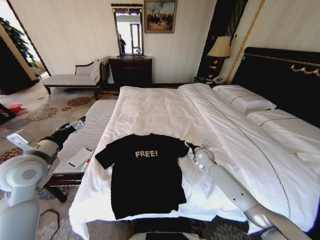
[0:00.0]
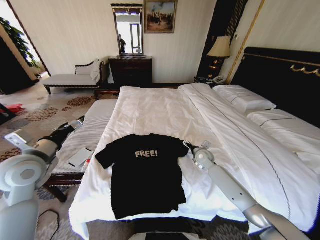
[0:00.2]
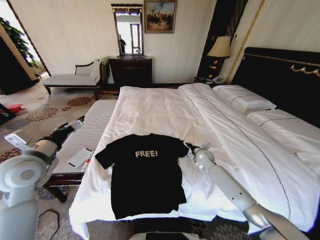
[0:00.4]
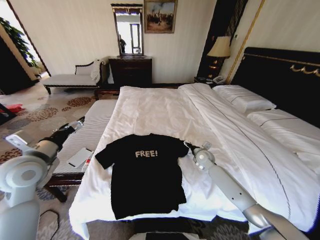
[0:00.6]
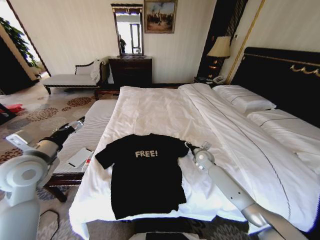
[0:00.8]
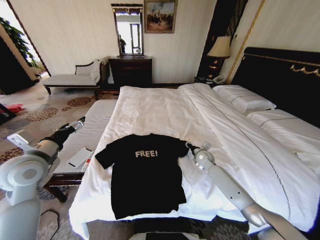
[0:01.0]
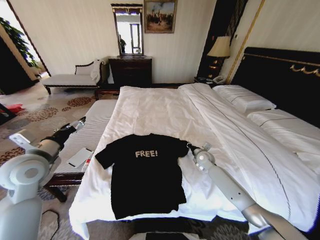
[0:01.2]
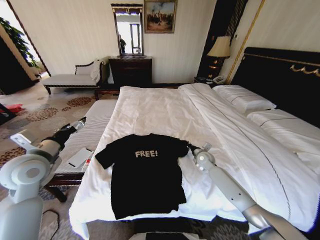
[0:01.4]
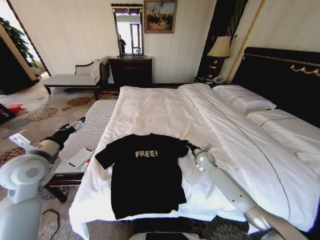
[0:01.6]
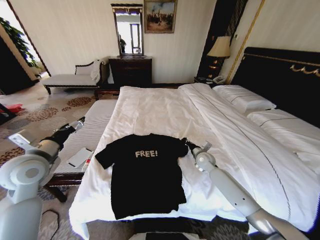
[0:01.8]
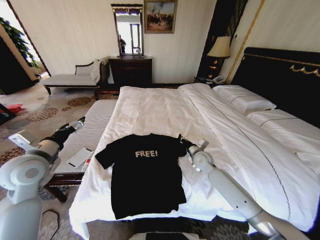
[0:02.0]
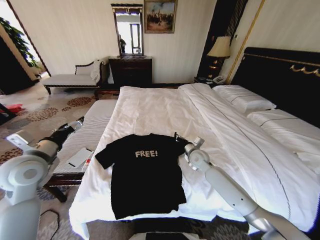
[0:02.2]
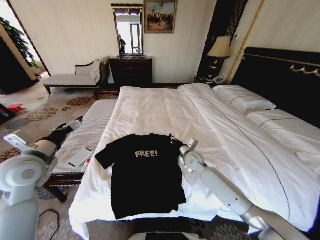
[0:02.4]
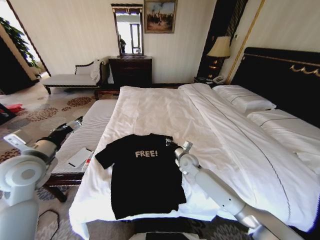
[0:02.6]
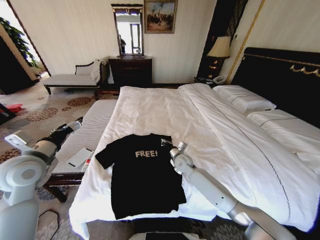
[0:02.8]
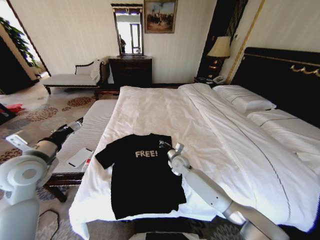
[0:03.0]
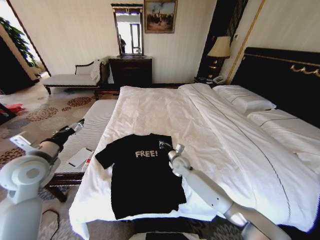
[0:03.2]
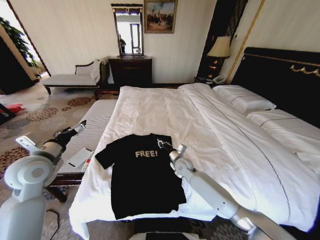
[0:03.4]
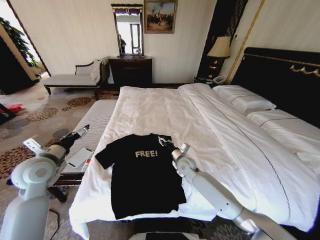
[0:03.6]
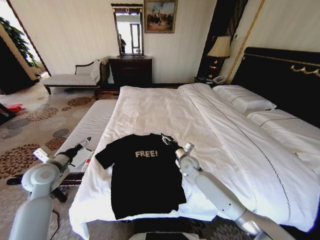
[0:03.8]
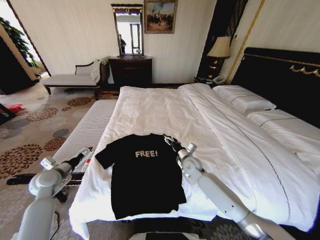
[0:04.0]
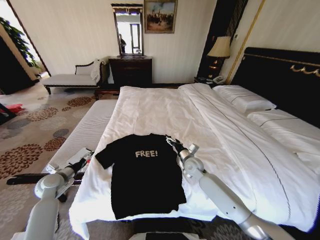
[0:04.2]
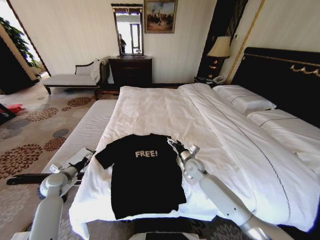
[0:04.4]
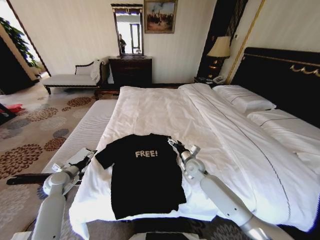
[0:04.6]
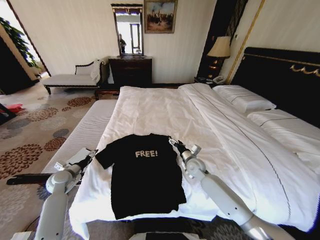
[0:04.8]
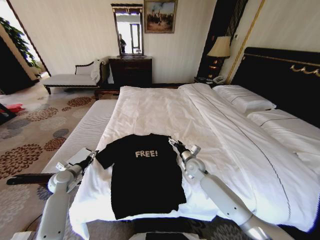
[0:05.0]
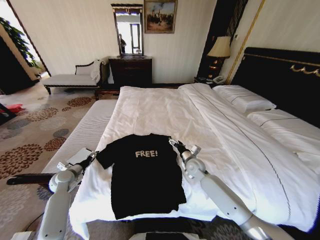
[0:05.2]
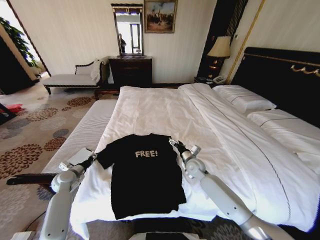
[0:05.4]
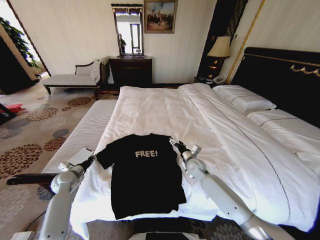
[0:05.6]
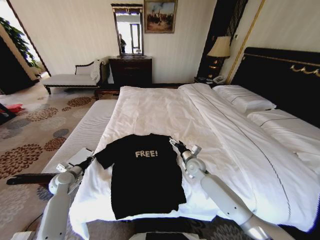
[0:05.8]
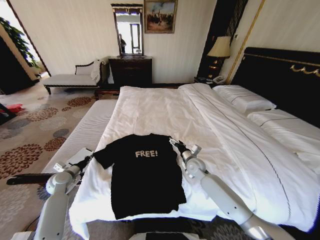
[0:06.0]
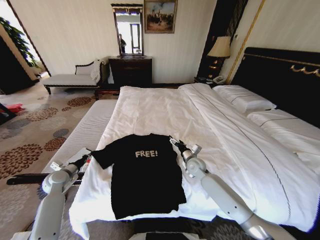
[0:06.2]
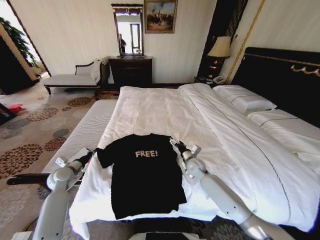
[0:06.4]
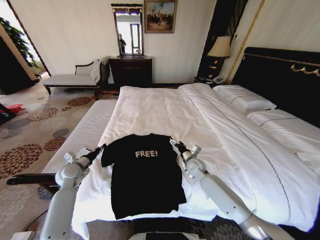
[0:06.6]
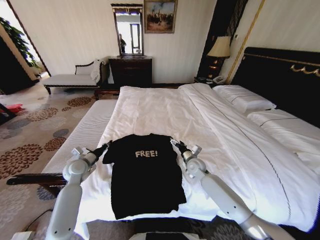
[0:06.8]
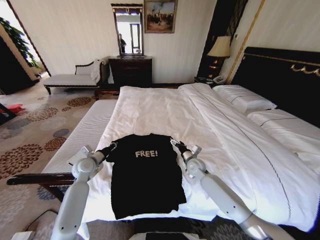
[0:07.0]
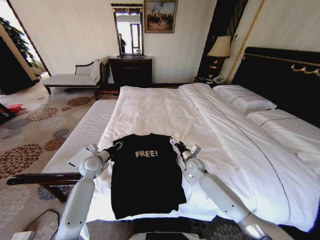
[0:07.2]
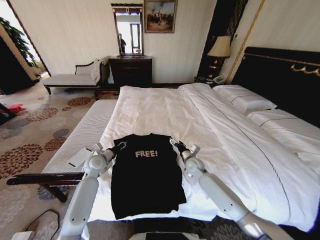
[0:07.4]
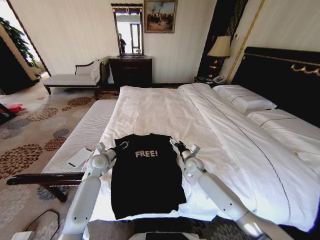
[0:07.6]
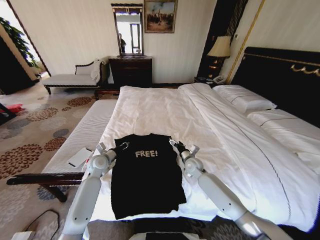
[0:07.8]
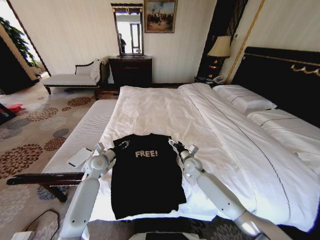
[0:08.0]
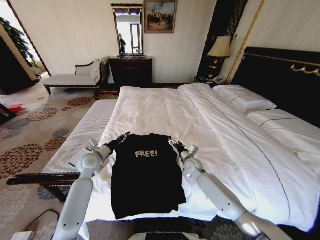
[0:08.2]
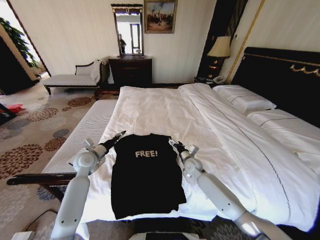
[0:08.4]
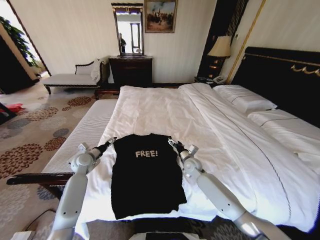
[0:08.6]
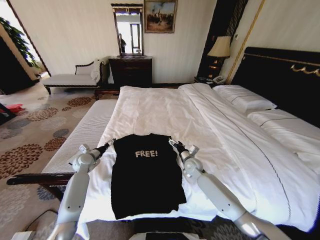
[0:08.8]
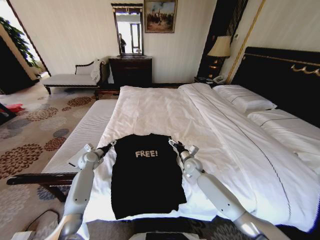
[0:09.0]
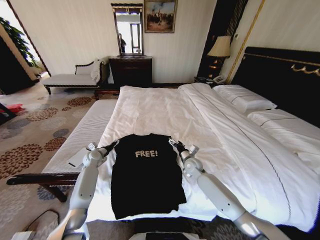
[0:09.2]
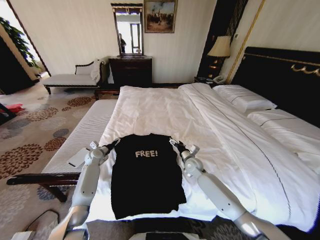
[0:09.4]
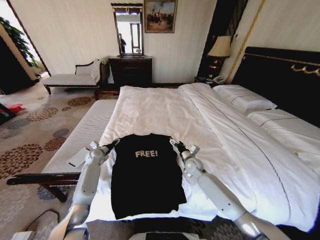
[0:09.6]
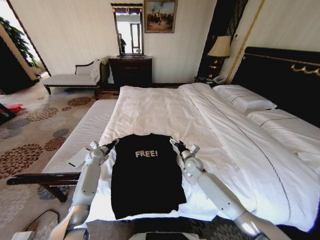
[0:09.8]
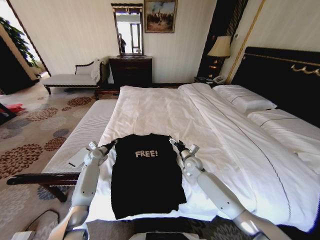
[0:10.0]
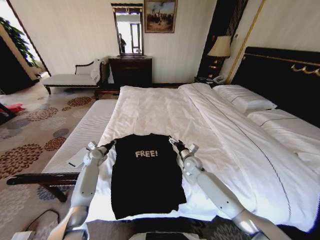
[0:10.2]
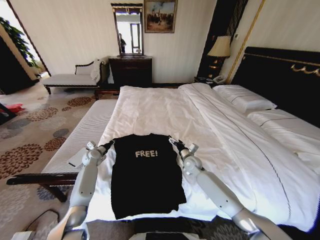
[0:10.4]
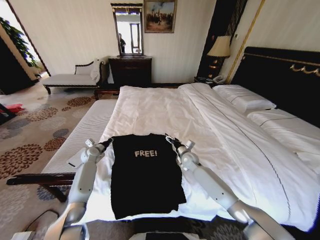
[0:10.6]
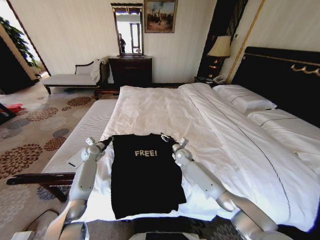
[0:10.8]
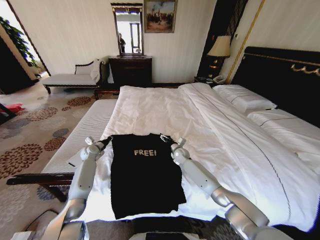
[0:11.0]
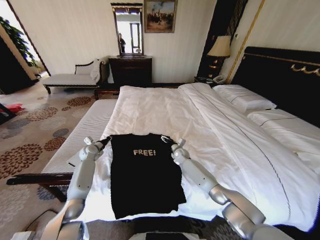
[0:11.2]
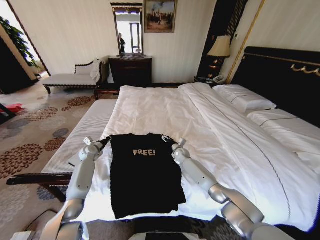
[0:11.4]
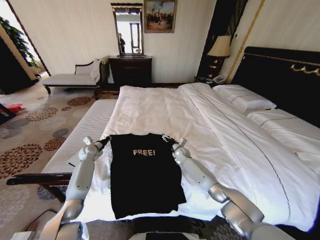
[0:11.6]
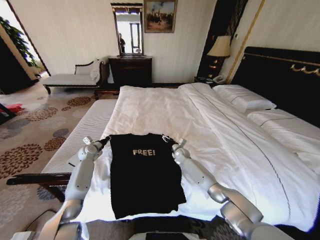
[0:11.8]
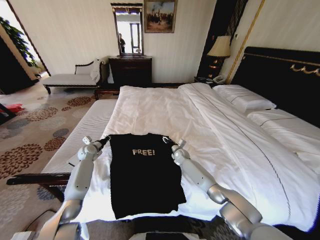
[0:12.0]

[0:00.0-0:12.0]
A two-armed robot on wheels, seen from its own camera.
Task of the whole recording: Fold the clothes on the bed.
0:00.0 to 0:01.6: The right gripper closes.
0:01.6 to 0:03.0: The right gripper moves to the left, some 15 cm.
0:03.0 to 0:04.4: The right gripper is displaced to the right by approximately 5 cm, and opens up. The left gripper goes about 20 cm downward.
0:04.4 to 0:06.0: The left gripper closes its fingers.
0:06.0 to 0:07.6: The left gripper goes approximately 20 cm to the right and forward.
0:07.6 to 0:09.0: The left gripper is displaced to the left and forward by roughly 10 cm, and opens.
0:09.0 to 0:10.4: The left gripper closes its fingers.
0:10.4 to 0:12.0: The right gripper goes approximately 10 cm forward and downward.

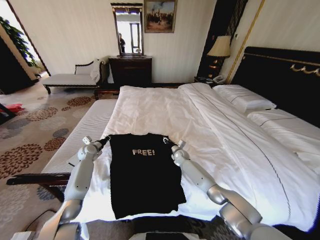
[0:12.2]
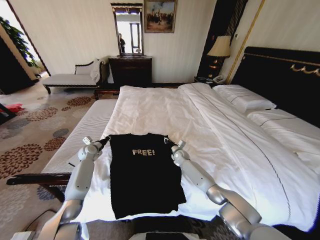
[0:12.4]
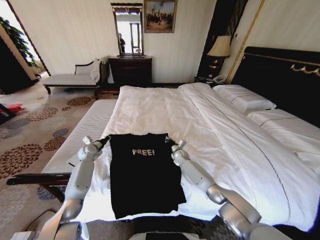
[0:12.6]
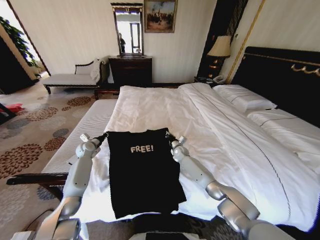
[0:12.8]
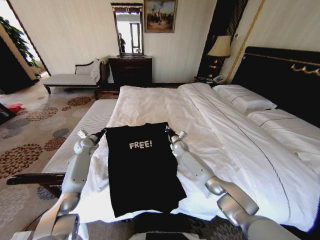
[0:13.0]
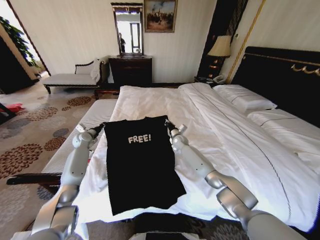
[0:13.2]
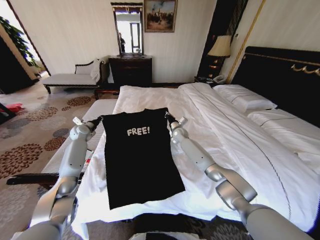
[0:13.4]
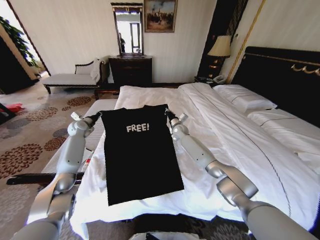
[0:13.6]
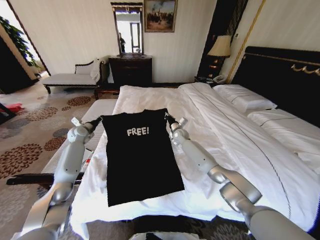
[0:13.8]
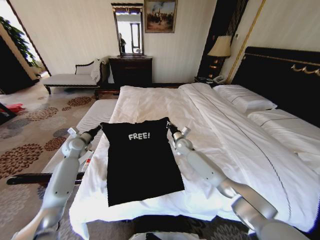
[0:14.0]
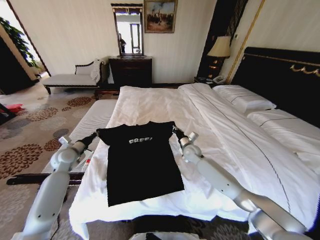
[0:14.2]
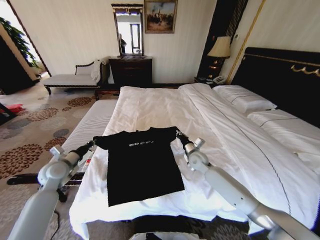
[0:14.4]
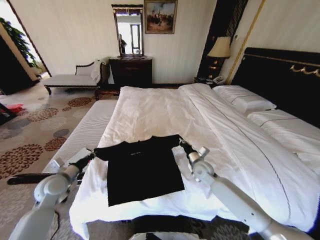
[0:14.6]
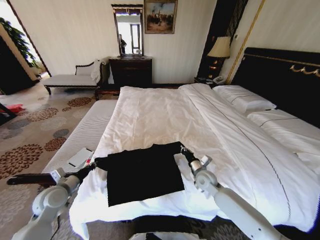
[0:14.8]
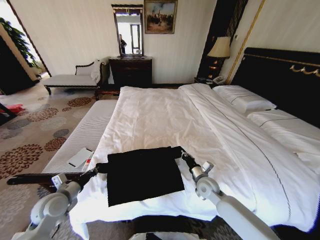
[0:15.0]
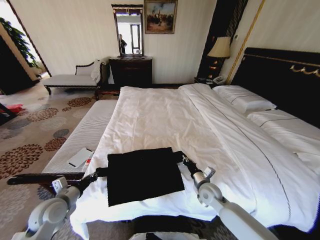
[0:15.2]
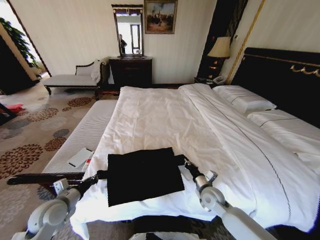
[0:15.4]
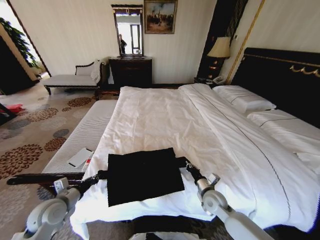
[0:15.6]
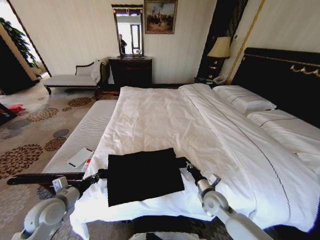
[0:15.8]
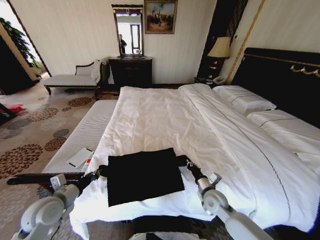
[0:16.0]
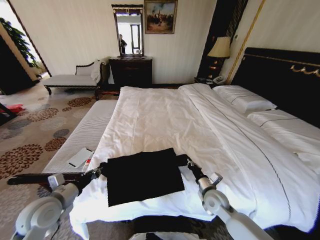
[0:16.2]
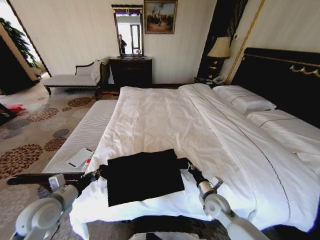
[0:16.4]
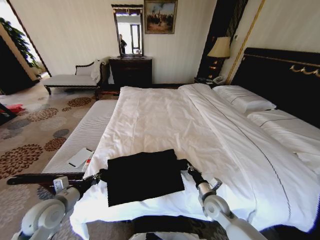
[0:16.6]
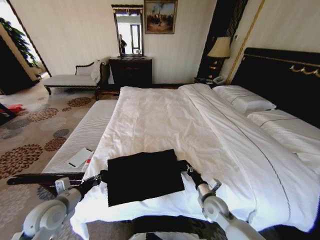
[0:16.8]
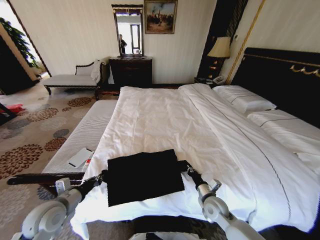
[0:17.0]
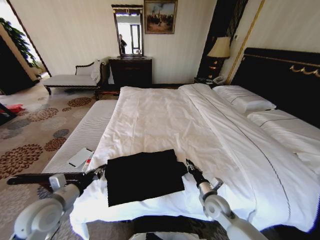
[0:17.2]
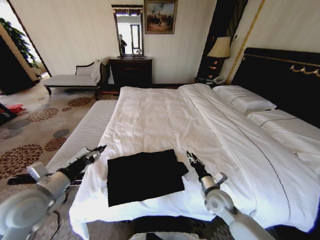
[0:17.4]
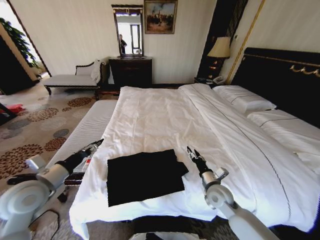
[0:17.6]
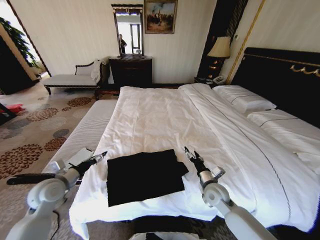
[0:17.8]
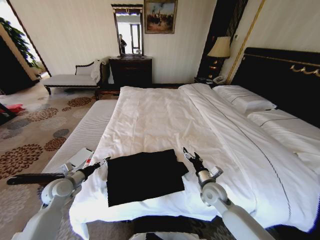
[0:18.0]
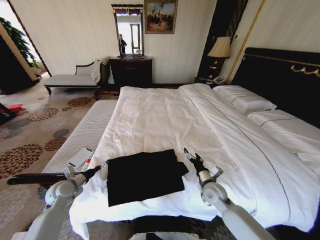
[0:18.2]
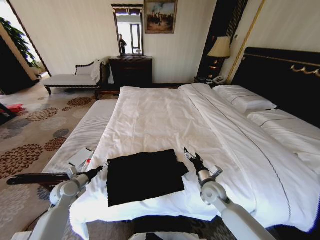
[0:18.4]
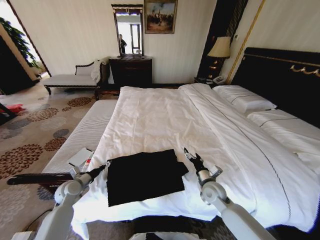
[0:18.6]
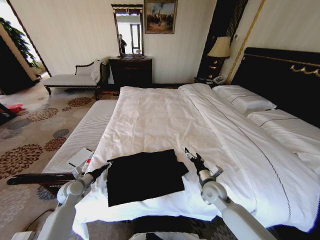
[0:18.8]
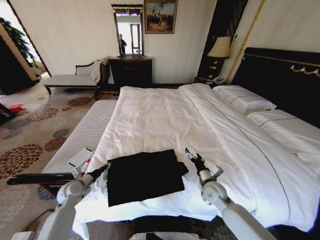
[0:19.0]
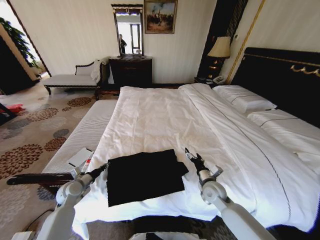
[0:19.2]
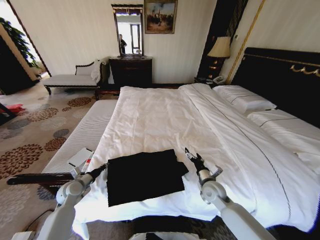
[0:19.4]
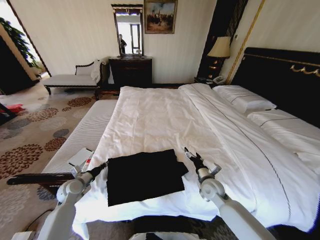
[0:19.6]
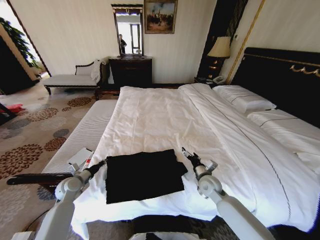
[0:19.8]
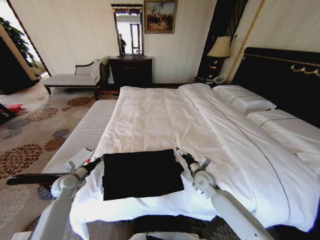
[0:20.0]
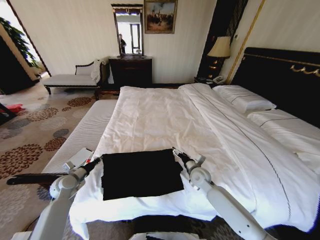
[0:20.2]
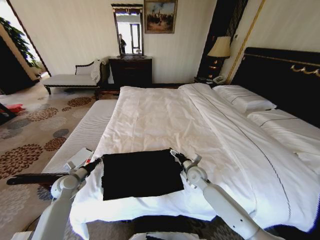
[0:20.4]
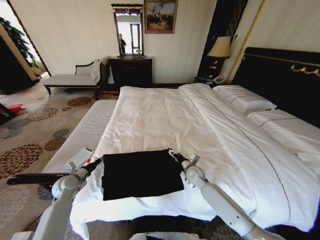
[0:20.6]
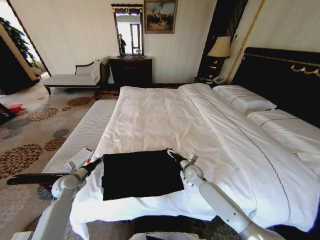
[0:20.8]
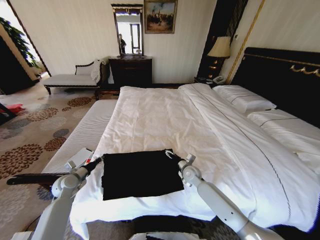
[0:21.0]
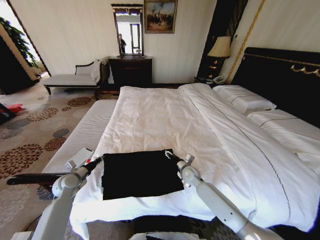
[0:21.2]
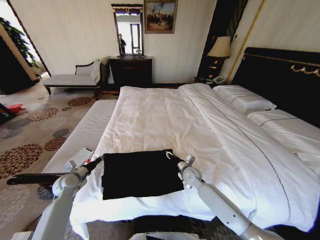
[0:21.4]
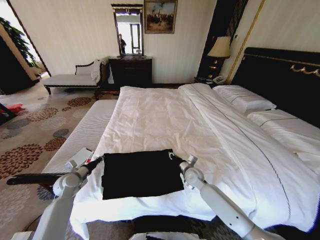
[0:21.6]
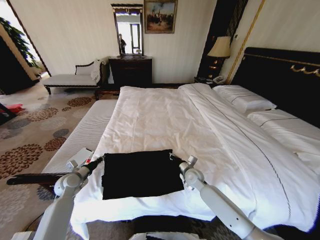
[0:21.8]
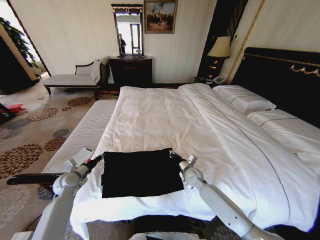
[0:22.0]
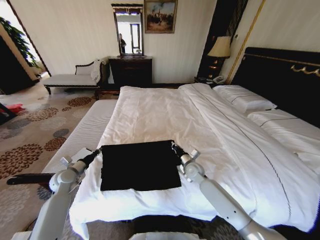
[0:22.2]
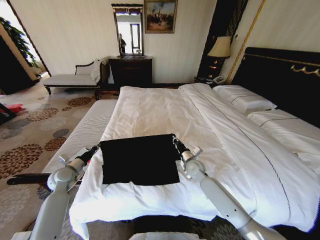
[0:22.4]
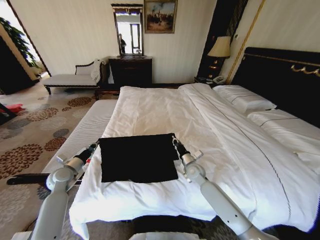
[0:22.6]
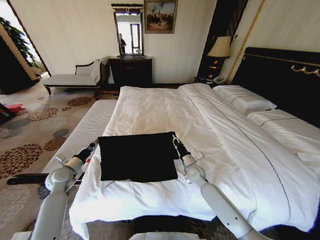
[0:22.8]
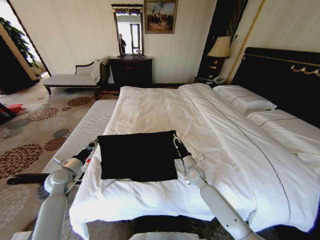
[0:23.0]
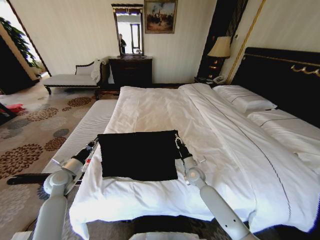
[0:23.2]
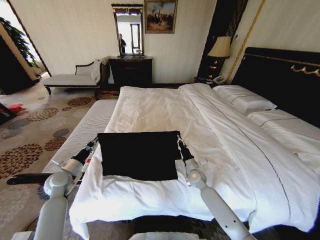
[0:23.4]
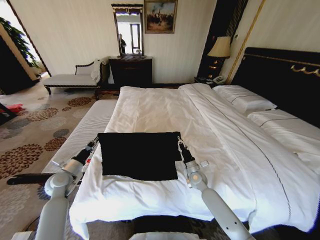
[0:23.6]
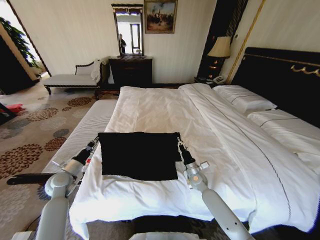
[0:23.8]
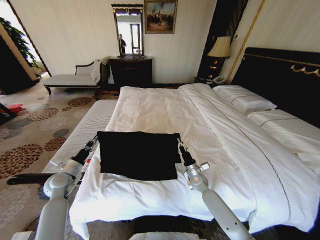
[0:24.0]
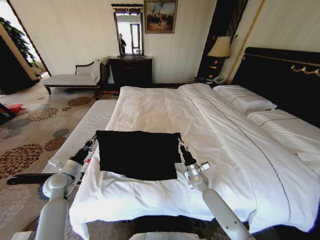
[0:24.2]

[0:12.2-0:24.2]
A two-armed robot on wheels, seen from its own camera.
Task of the whole recording: Fold the clothes on the bed.
0:12.2 to 0:13.8: The left gripper is displaced upward by about 10 cm. Meanwhile the right gripper is displaced upward and forward by roughly 15 cm, and closes its fingers.
0:13.8 to 0:15.2: Both grippers travel together backward, some 30 cm.
0:15.2 to 0:16.6: The right gripper travels backward by roughly 5 cm.
0:16.6 to 0:18.2: The right gripper shifts by approximately 5 cm, and opens. The left gripper travels forward, downward and to the left by roughly 15 cm, and opens up.
0:18.2 to 0:19.8: The left gripper closes.
0:19.8 to 0:21.2: The right gripper heads forward and to the left, covering about 10 cm.
0:21.2 to 0:22.6: The right gripper closes.
0:22.6 to 0:24.2: The right gripper goes about 5 cm downward.
